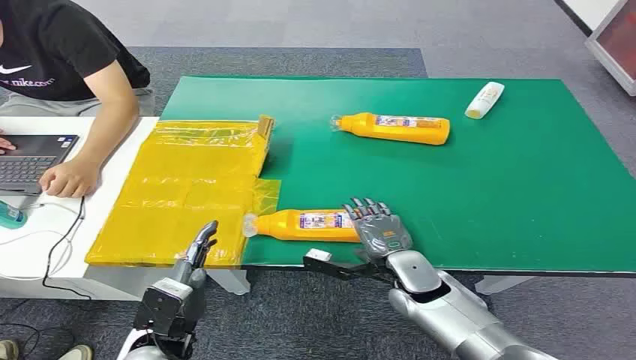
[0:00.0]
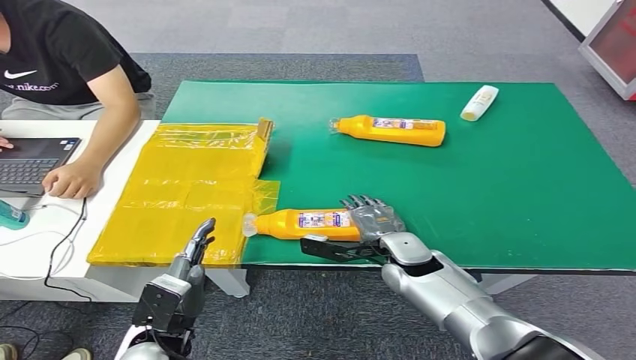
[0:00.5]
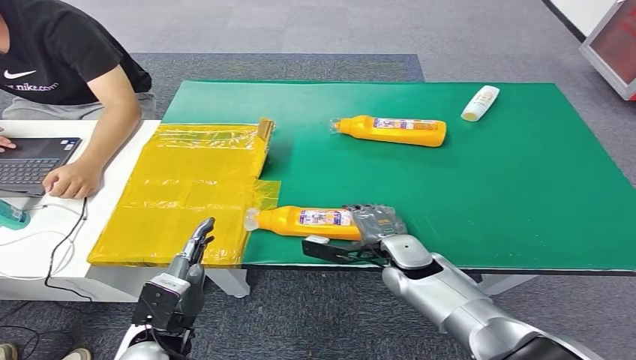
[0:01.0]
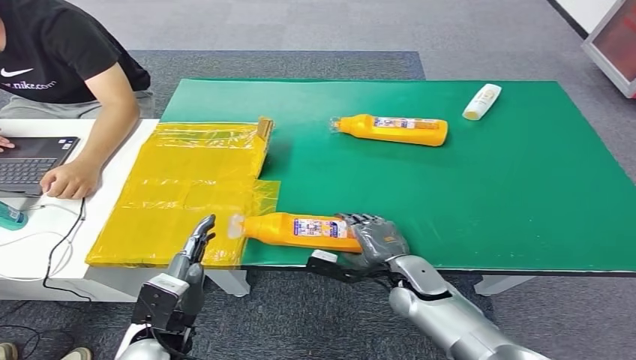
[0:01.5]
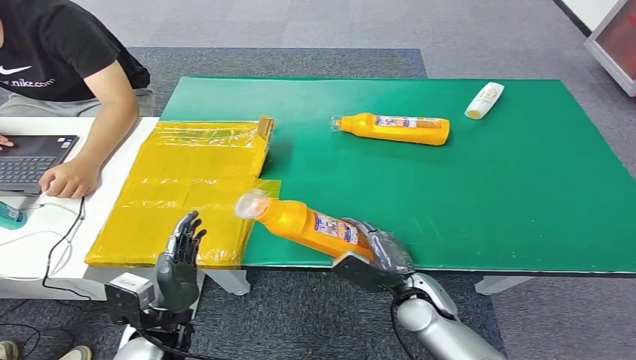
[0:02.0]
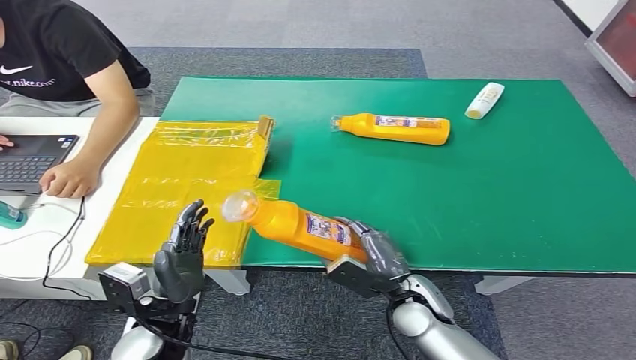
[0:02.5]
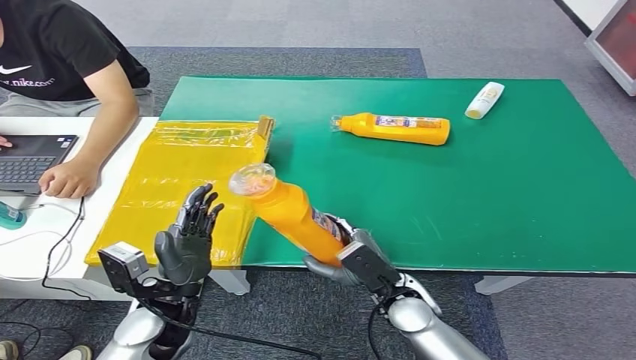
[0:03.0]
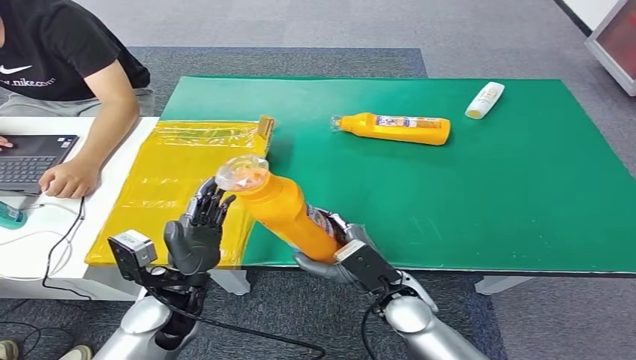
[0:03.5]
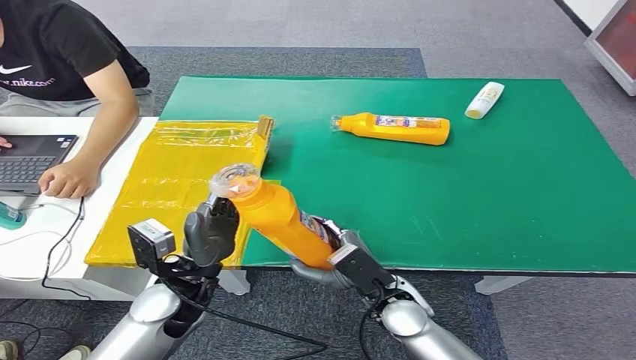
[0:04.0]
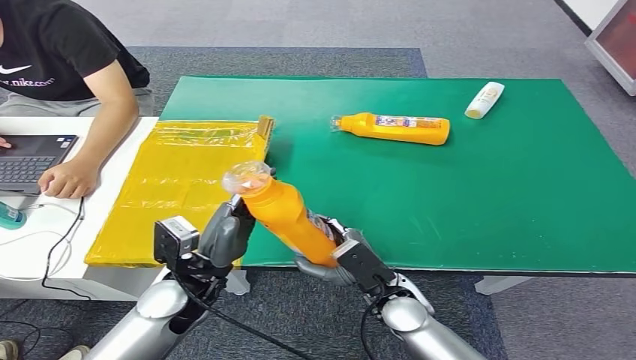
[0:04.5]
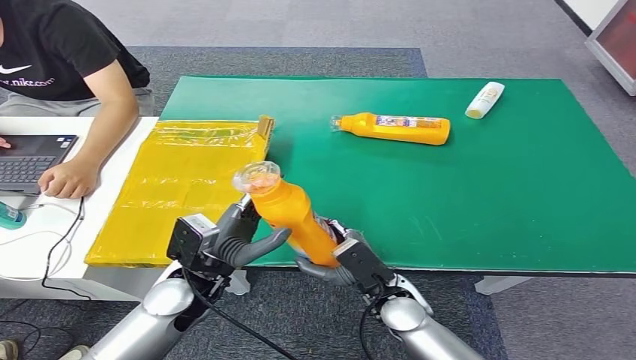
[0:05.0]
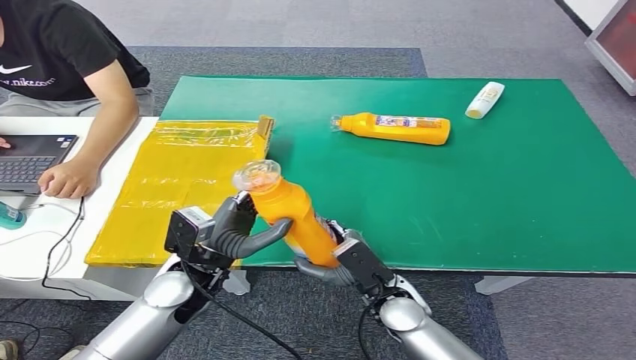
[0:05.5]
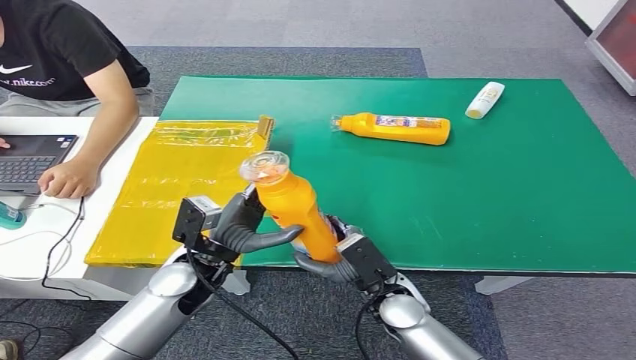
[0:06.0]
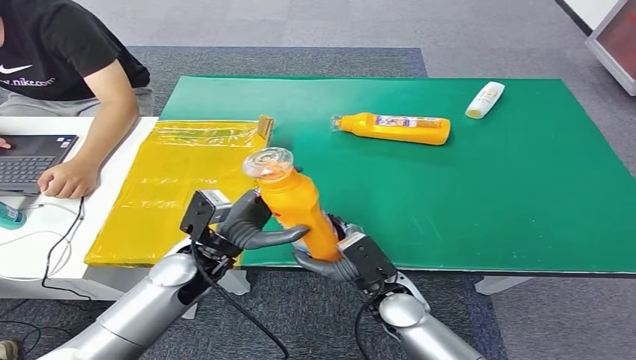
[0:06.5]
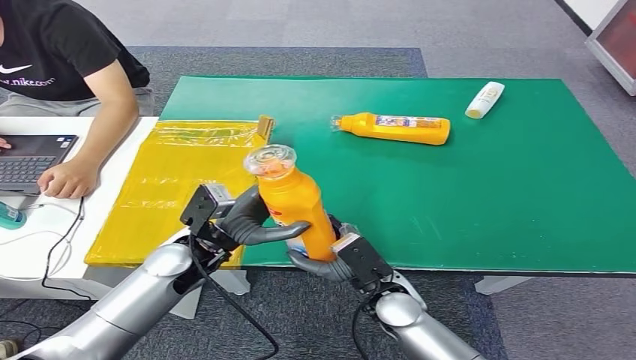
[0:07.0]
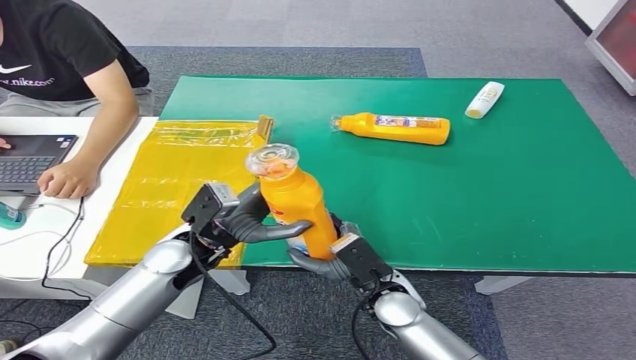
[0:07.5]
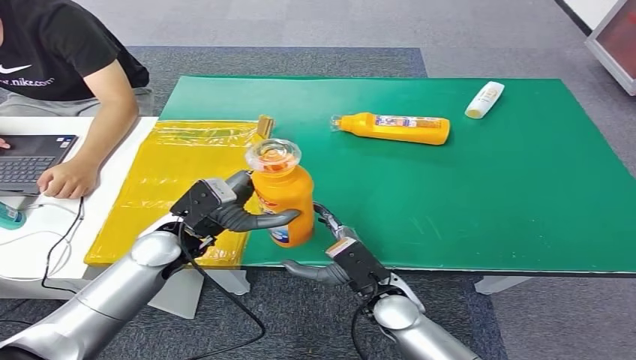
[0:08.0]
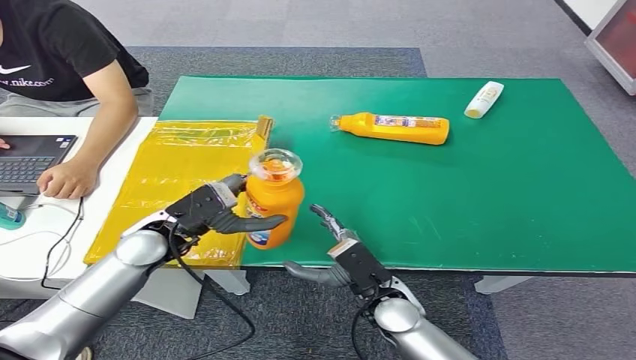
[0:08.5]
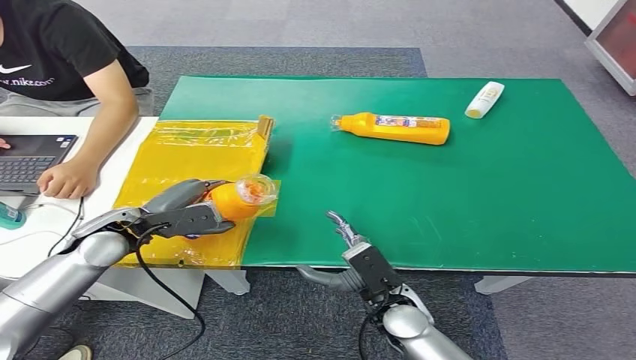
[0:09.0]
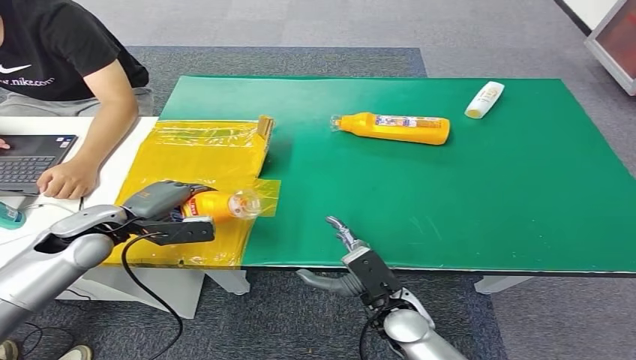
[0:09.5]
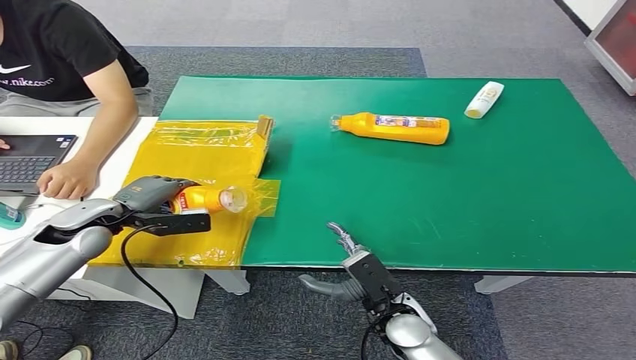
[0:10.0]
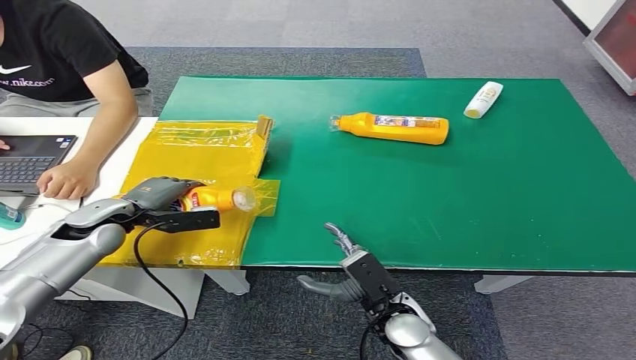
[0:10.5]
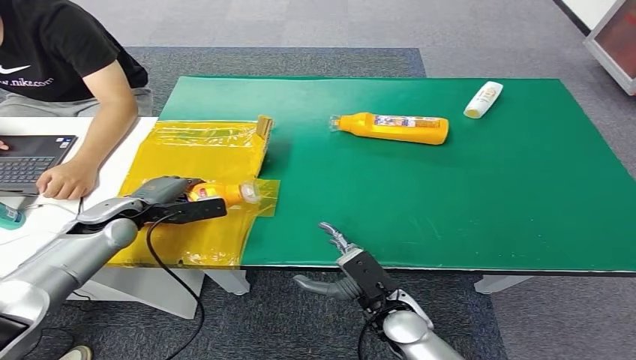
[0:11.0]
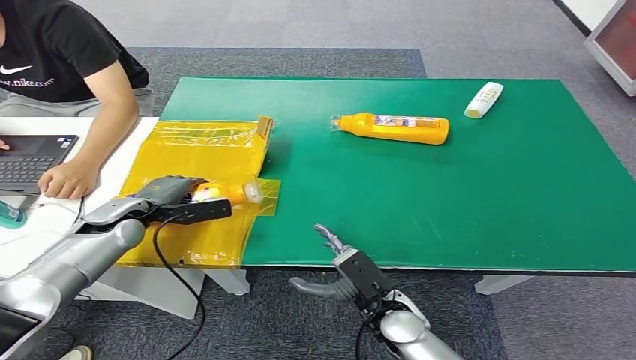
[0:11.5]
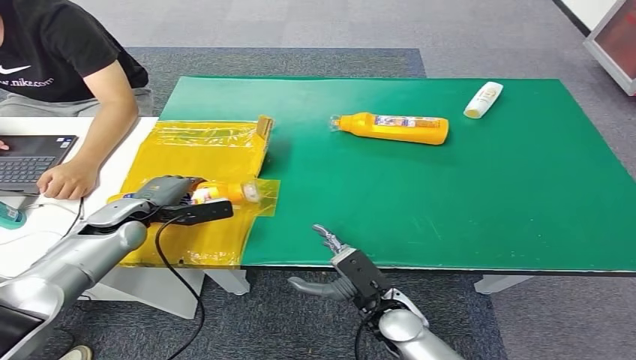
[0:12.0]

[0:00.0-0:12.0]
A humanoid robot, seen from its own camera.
Step, 0:00.0 to 0:02.0: Pick up the bottle from the table.
0:02.0 to 0:04.0: The left hand is displaced forward and upward by some 10 cm. The right hand changes place by some 5 cm.
0:04.0 to 0:06.0: There are only small adjustments of the hands.
0:06.0 to 0:08.0: The left hand shifts by approximately 5 cm.
0:08.0 to 0:10.0: The left hand shifts approximately 15 cm to the left.
0:10.0 to 0:12.0: The left hand moves approximately 5 cm.

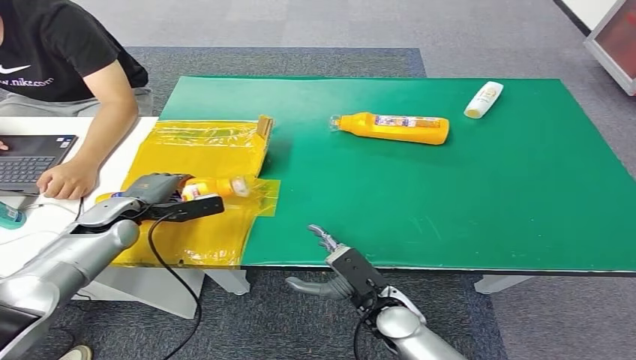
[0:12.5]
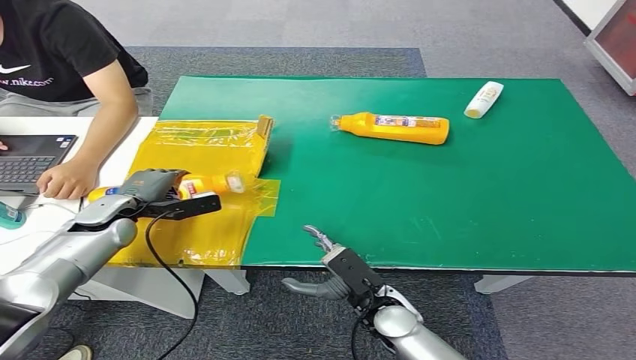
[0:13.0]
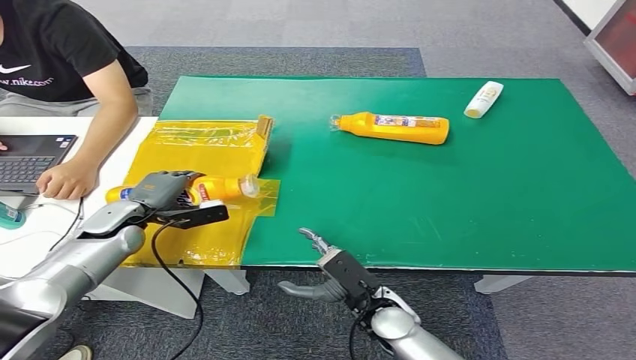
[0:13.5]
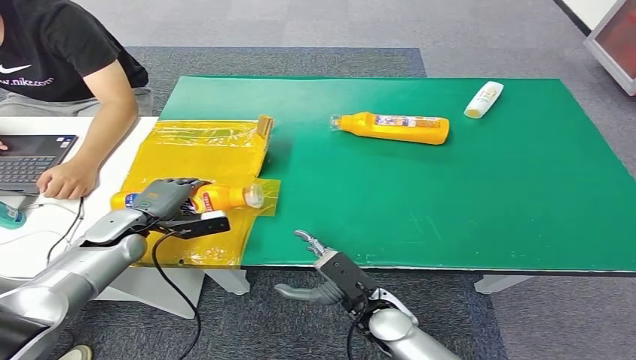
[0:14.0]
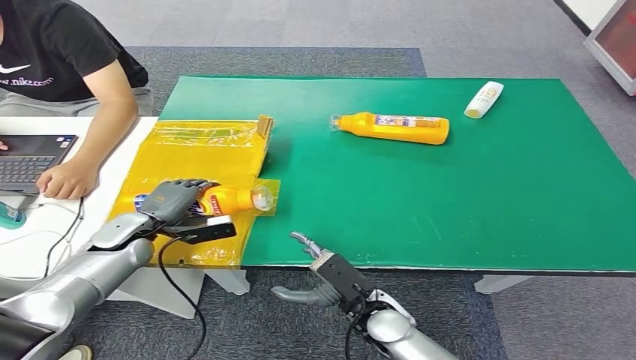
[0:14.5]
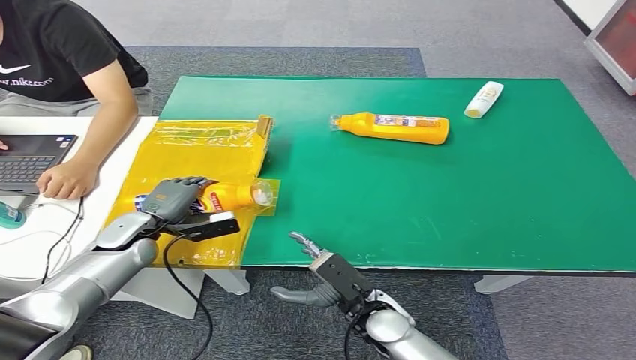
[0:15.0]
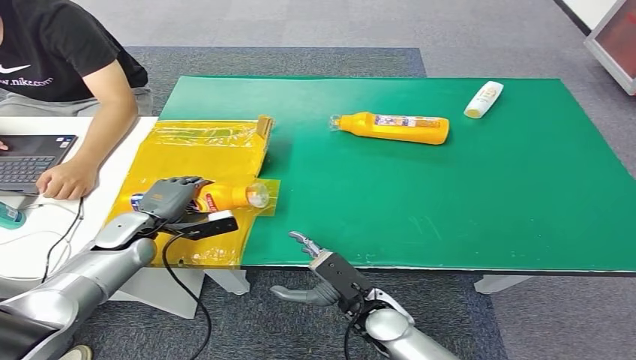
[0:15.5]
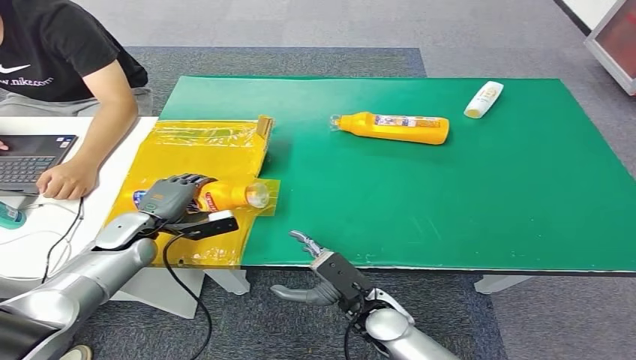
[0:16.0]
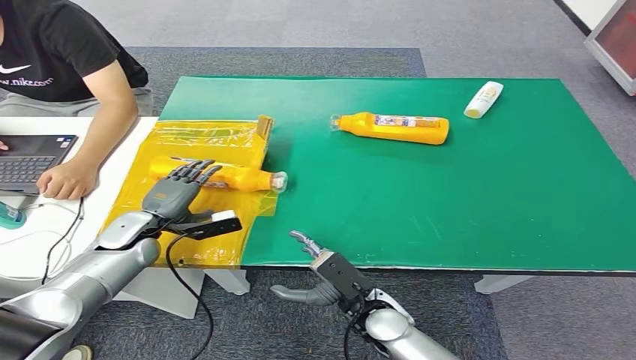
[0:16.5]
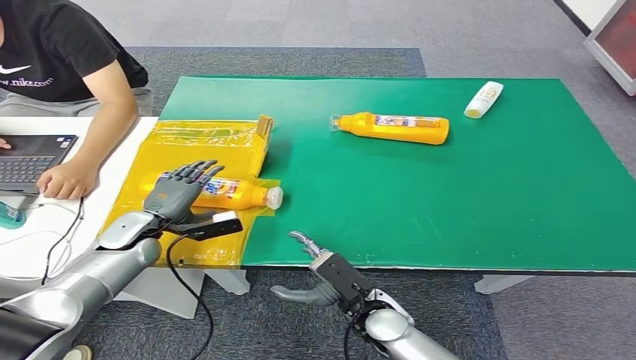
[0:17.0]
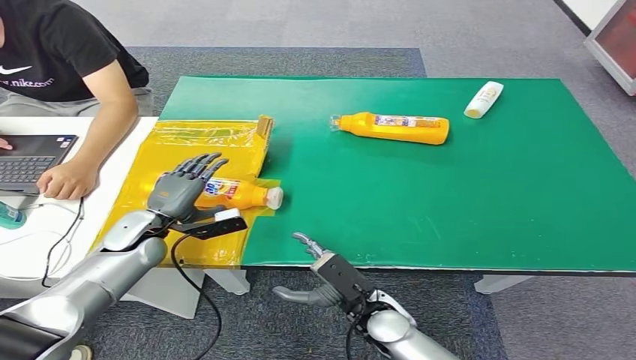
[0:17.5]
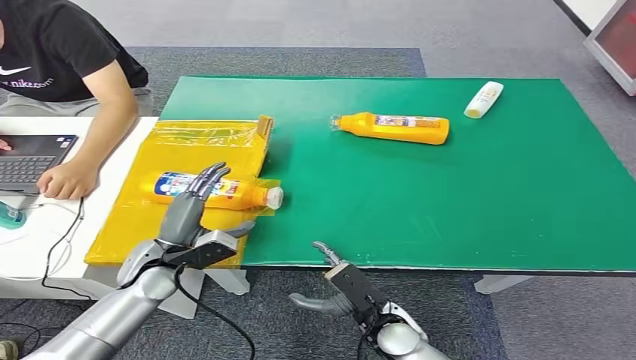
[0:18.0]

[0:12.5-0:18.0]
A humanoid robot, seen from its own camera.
Step, 0:12.5 to 0:17.5: Turn the bottle to the front side.
0:12.5 to 0:16.0: There are only small adjustments of the hands.
0:16.0 to 0:18.0: The left hand is displaced backward and to the right by roughly 10 cm.

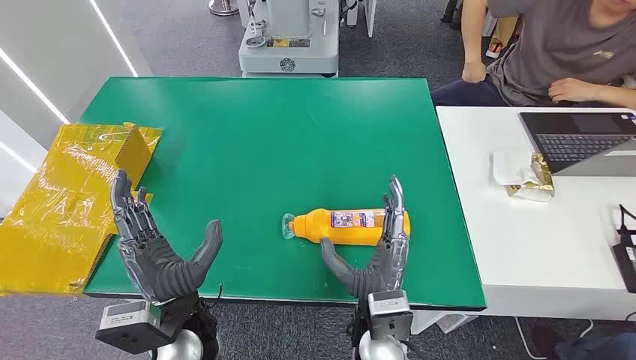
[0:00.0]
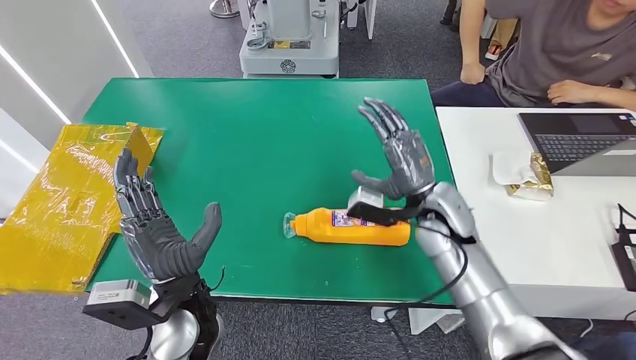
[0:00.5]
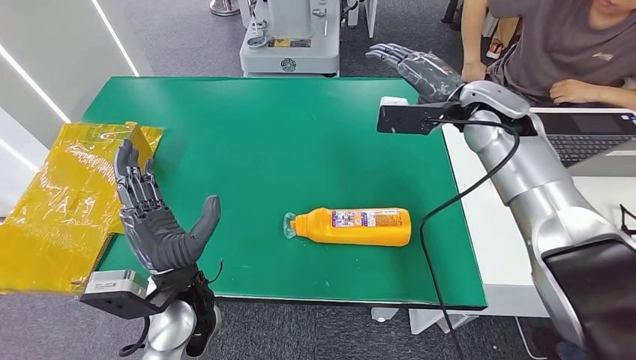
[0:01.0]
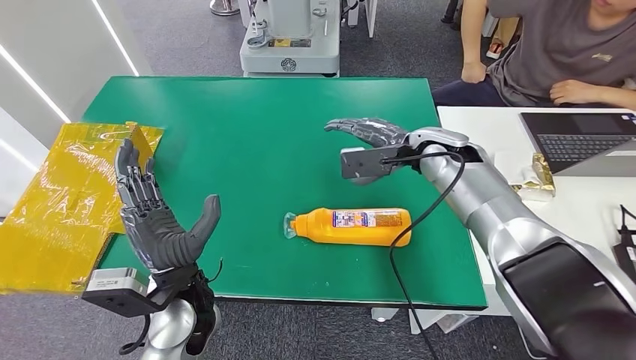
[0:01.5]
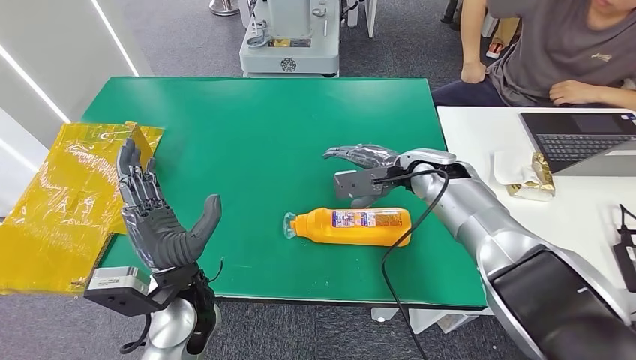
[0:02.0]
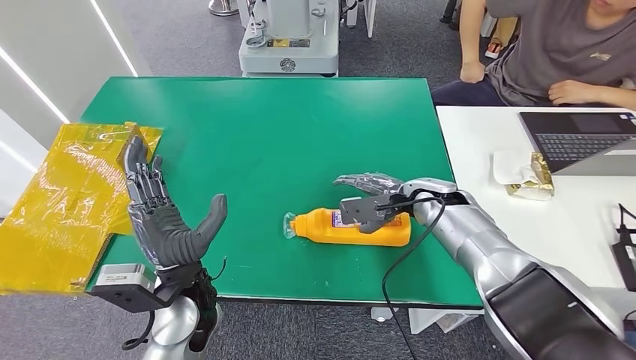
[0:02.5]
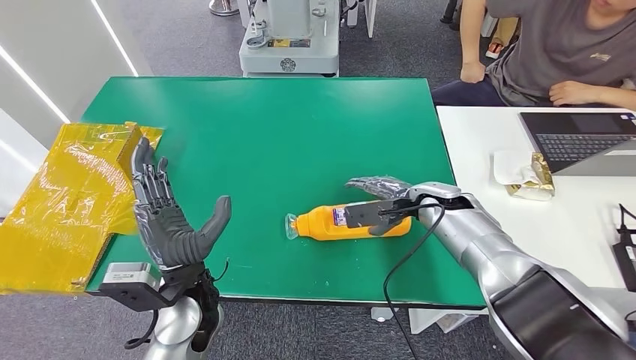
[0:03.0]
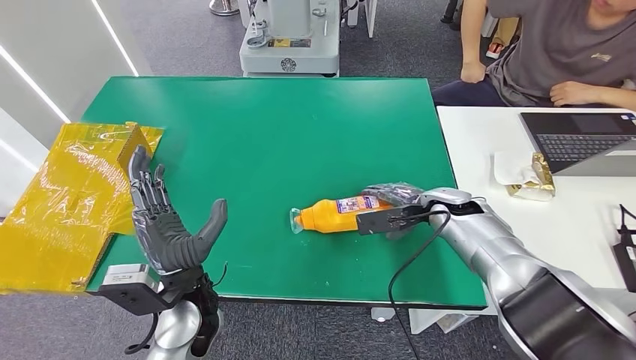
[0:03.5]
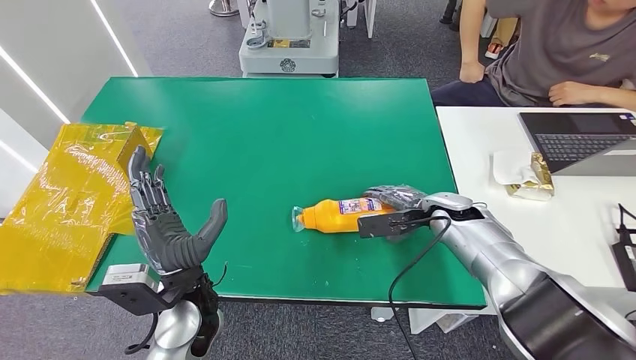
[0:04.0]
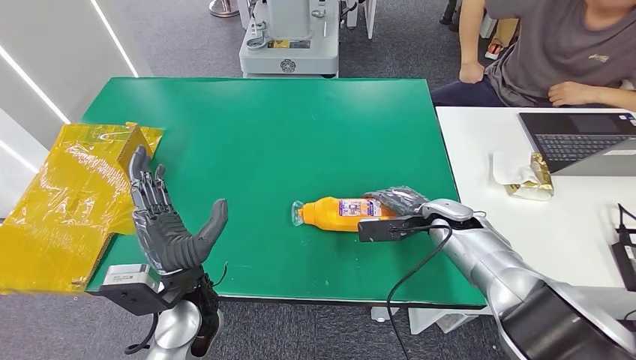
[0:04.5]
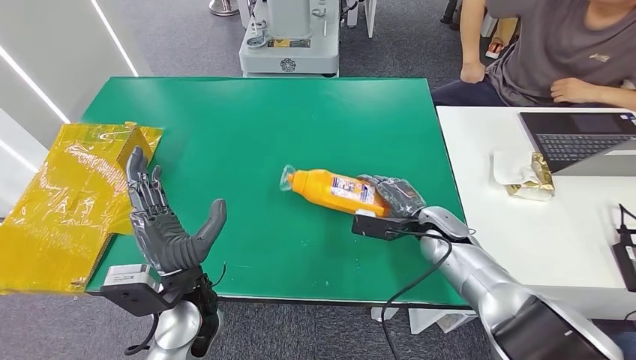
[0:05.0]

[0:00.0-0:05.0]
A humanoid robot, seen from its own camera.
0:02.5 to 0:05.0: The right hand shifts approximately 5 cm downward.
